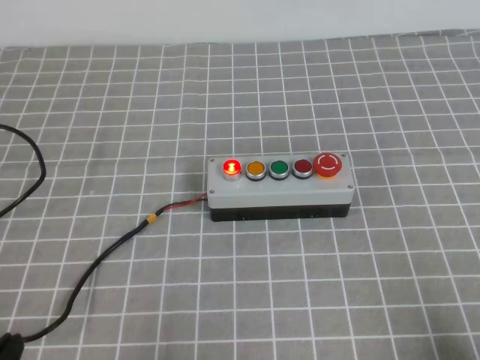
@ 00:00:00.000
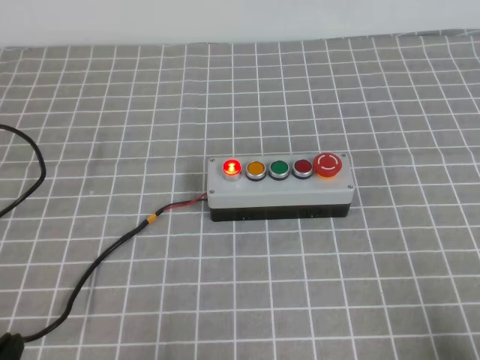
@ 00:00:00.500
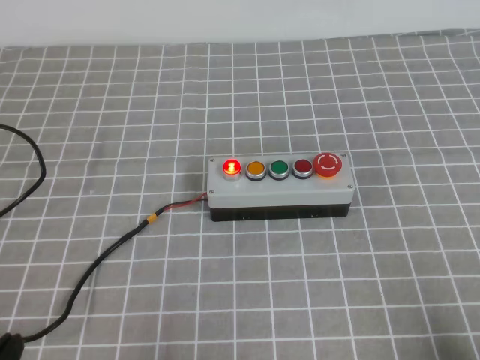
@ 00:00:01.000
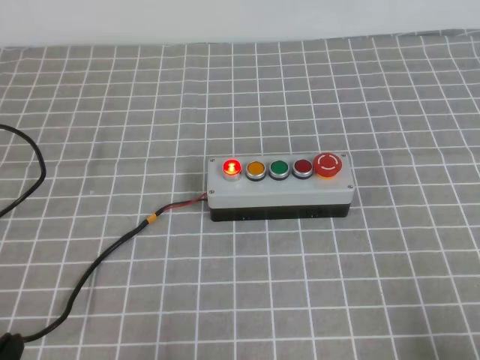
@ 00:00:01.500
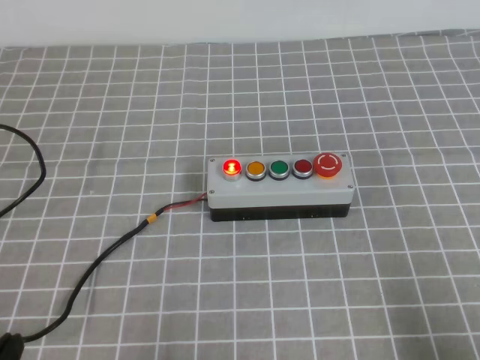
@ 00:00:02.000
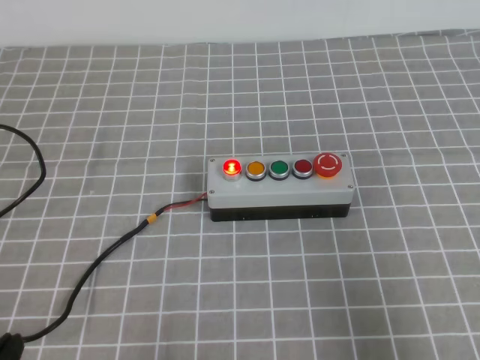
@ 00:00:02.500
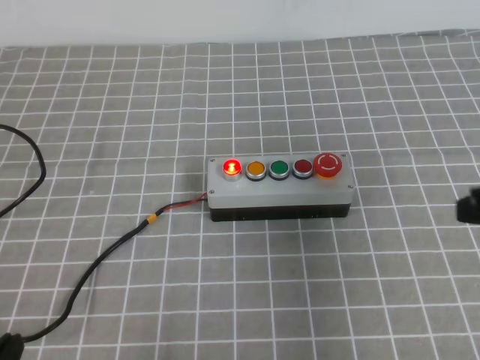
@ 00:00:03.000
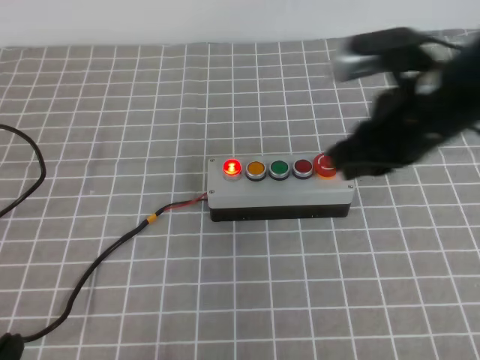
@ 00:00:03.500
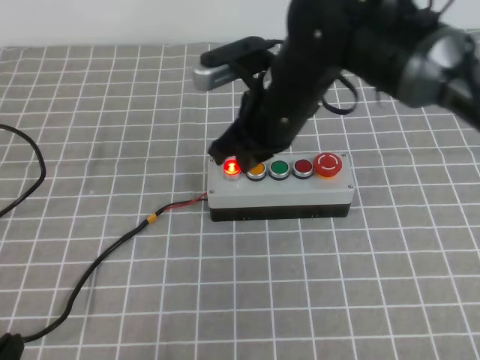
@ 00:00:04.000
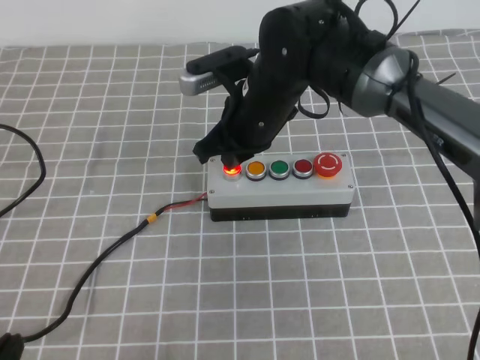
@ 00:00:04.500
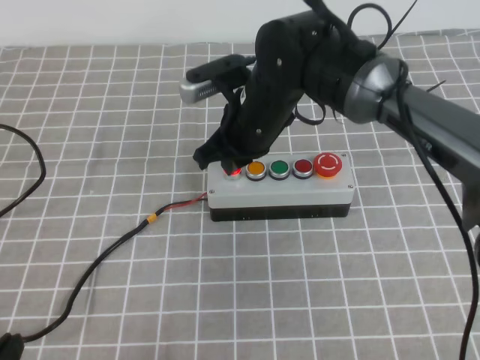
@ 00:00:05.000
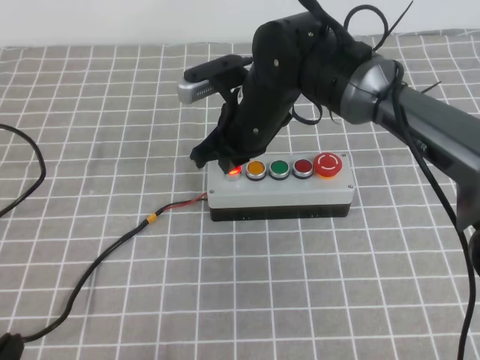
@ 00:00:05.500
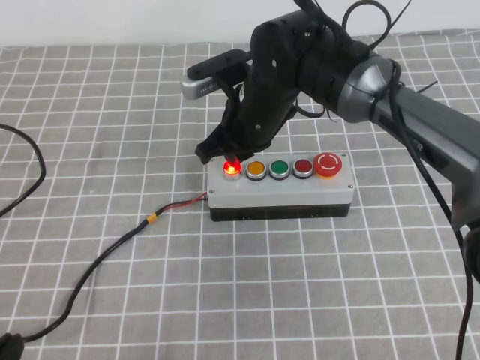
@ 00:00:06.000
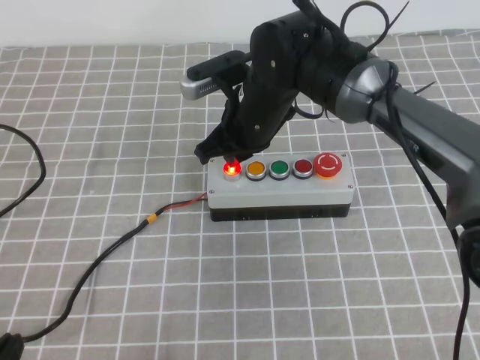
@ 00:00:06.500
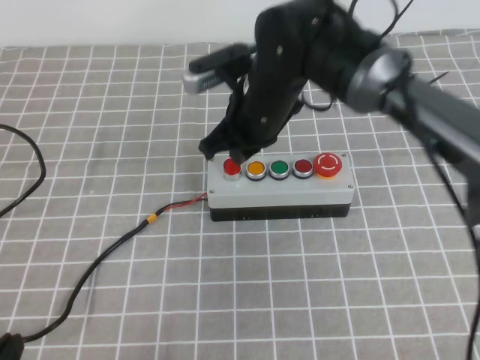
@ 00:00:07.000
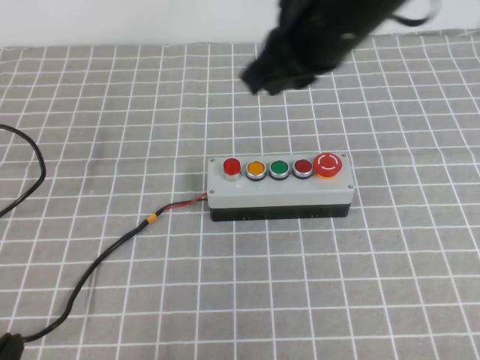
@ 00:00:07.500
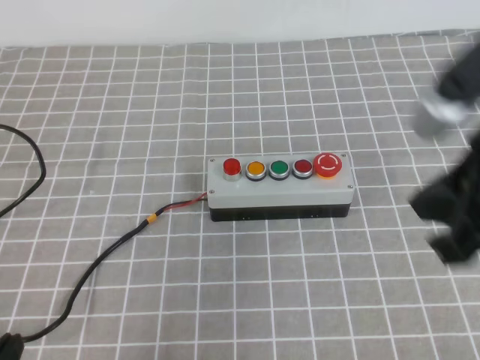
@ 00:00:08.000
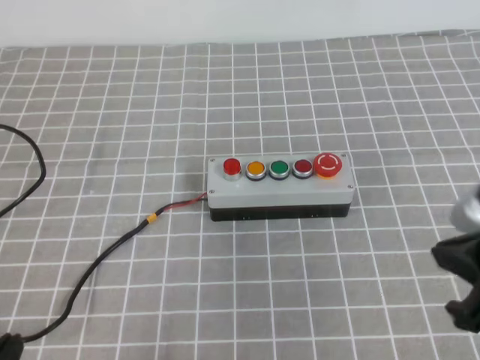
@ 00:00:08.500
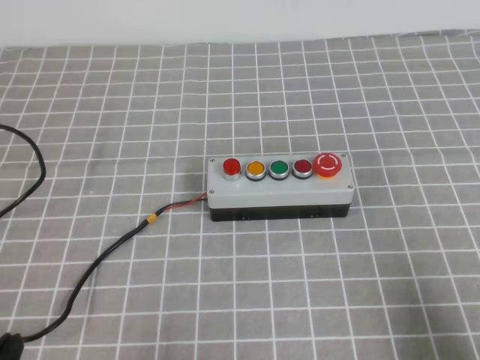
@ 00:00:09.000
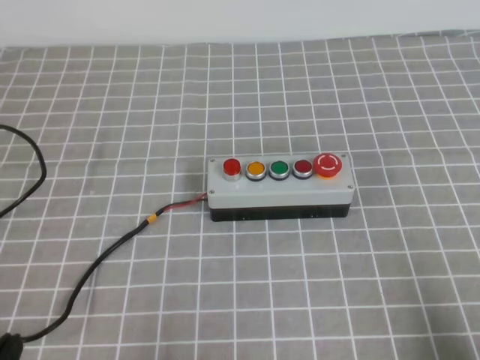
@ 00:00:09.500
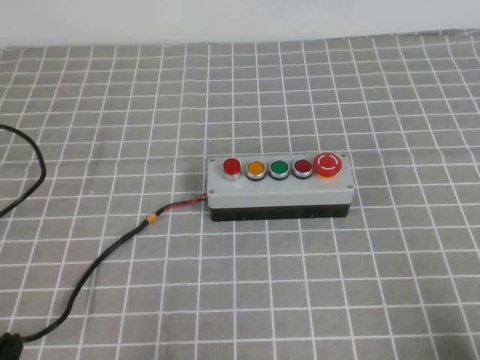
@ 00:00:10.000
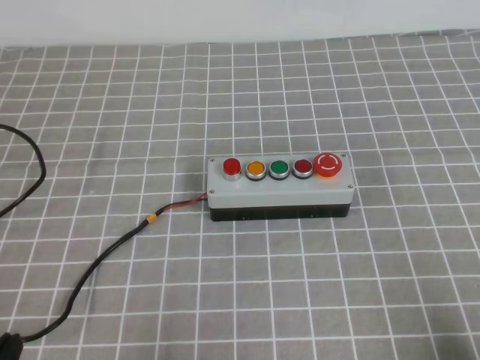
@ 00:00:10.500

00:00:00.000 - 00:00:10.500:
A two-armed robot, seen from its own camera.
Task of the whole recording: press the button switch on the grey tablecloth with the right gripper to turn off the button.
Step, 00:00:00.000 - 00:00:10.500: Press the button to turn off.
00:00:02.000 - 00:00:04.000: The right gripper moves forward and to the left, roughly 40 cm.
00:00:04.000 - 00:00:06.500: The right gripper goes roughly 5 cm downward.
00:00:06.500 - 00:00:08.500: The right gripper shifts about 35 cm backward and to the right.
00:00:08.500 - 00:00:10.500: The right gripper heads downward, backward and to the right, covering roughly 20 cm.

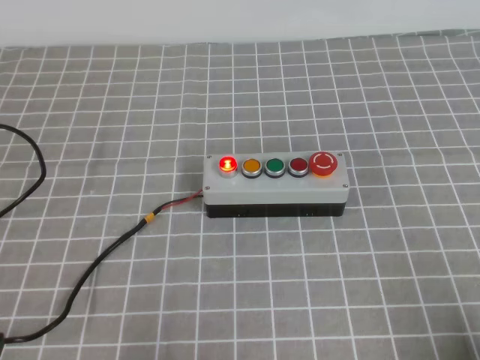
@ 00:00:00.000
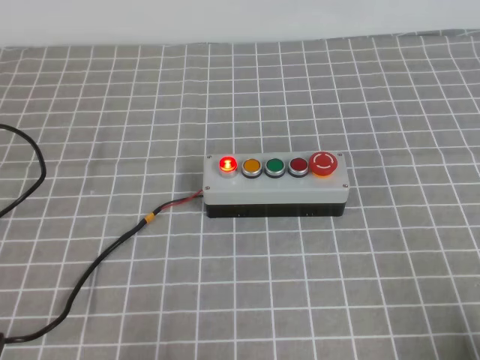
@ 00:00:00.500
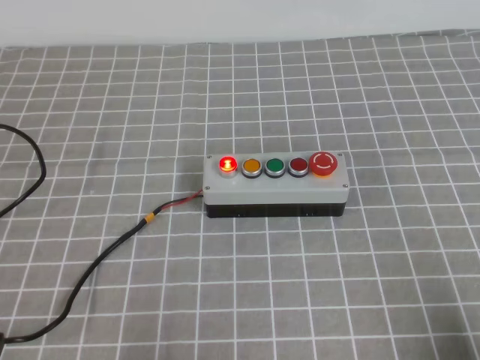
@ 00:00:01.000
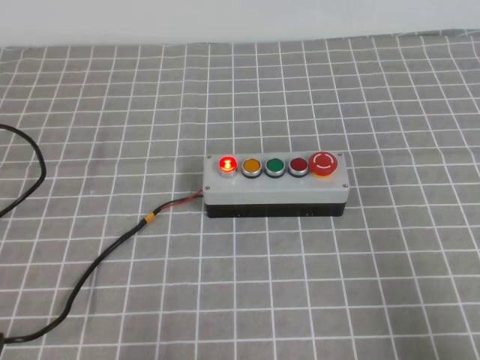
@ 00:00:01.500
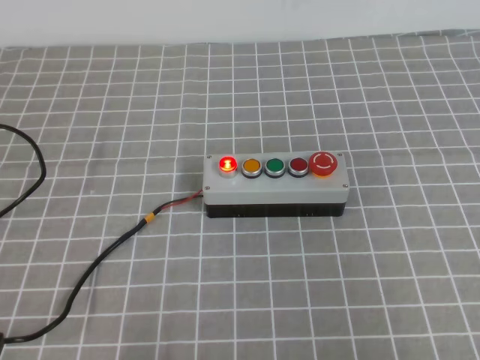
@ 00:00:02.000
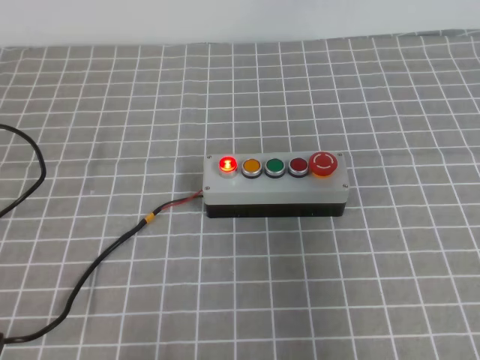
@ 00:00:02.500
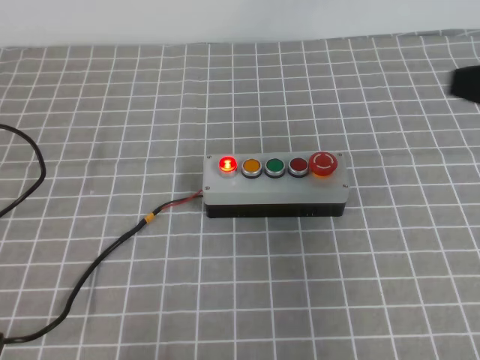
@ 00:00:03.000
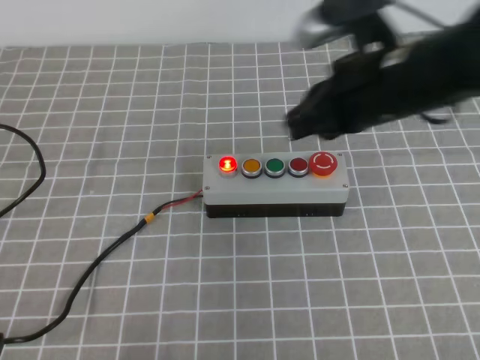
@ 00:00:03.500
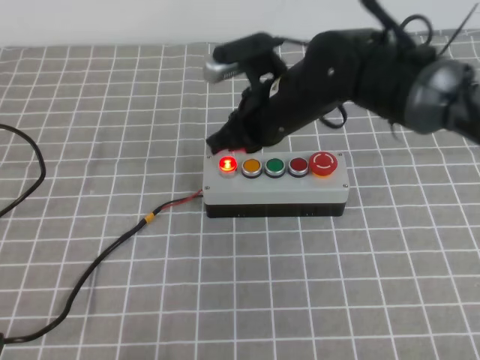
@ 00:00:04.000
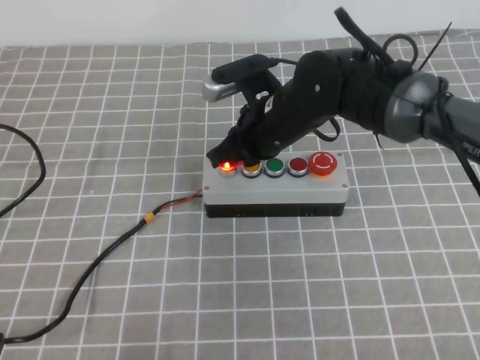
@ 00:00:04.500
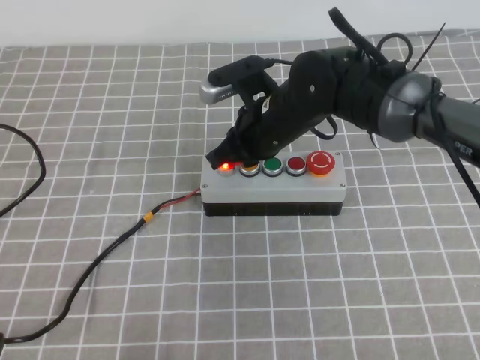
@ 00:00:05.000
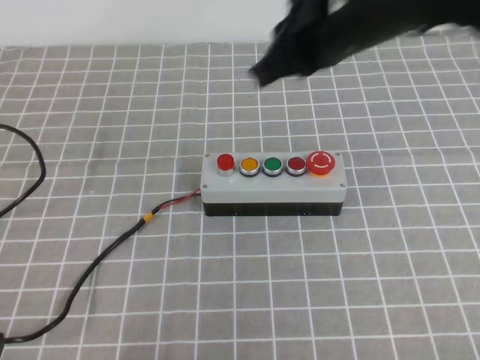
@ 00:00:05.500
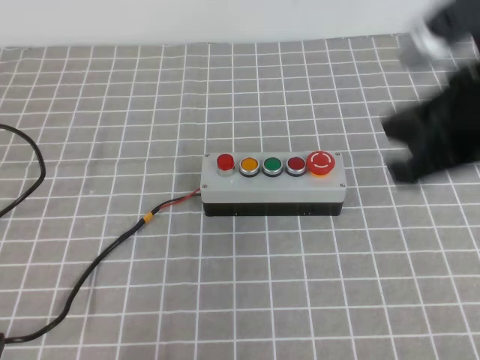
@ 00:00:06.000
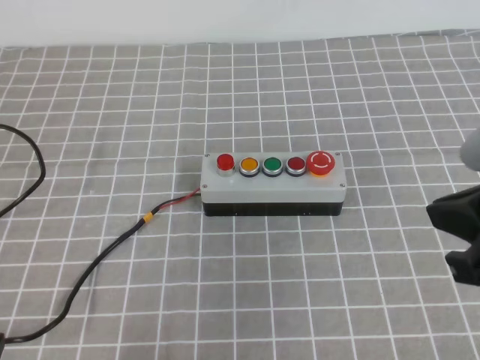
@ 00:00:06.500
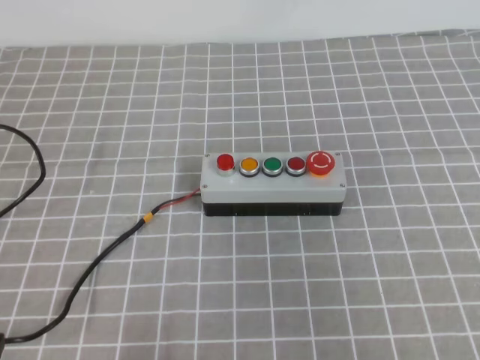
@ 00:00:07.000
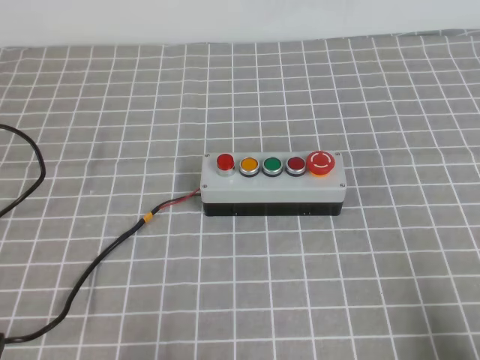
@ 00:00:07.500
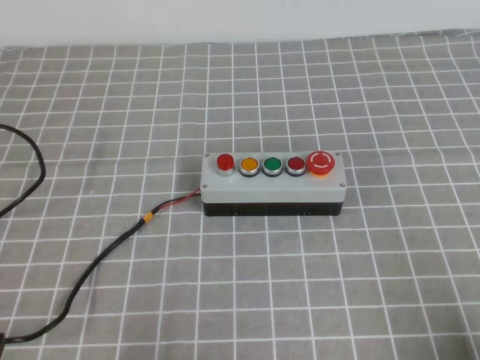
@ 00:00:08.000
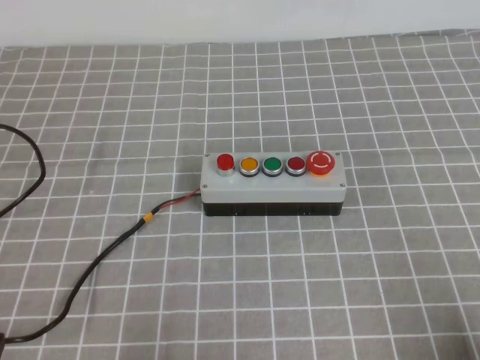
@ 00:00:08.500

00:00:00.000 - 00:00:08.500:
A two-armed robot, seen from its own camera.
Task of the whole recording: press the button switch on the grey tablecloth with the right gripper to turn off the button.
Step, 00:00:00.000 - 00:00:08.500: Press the button to turn off.
00:00:00.000 - 00:00:02.000: The right gripper moves upward, approximately 20 cm.
00:00:02.000 - 00:00:04.000: The right gripper is displaced forward and to the left by some 40 cm.
00:00:04.000 - 00:00:06.500: The right gripper moves backward and to the right, some 25 cm.
00:00:06.500 - 00:00:08.500: The right gripper goes about 25 cm downward, to the right and backward.
